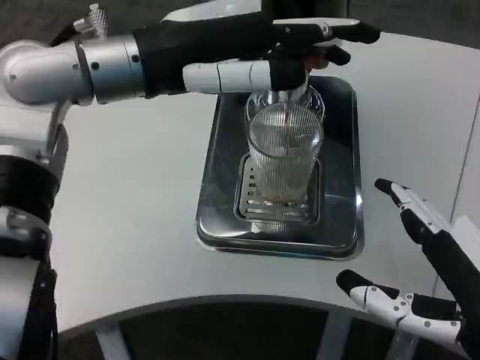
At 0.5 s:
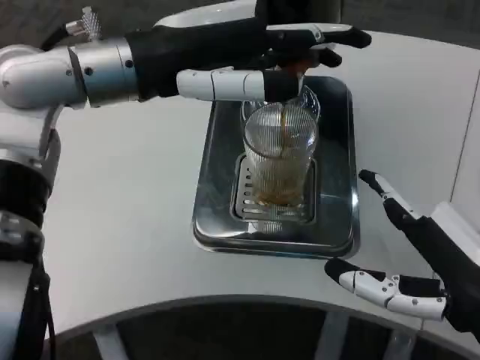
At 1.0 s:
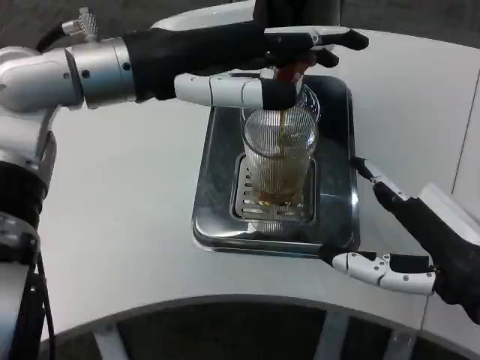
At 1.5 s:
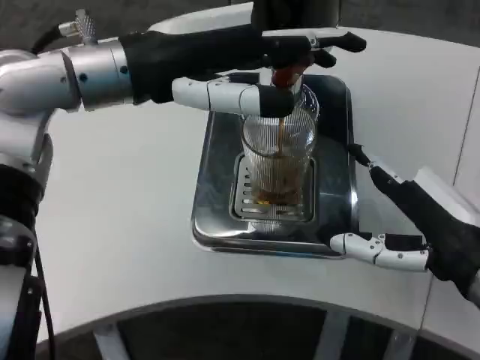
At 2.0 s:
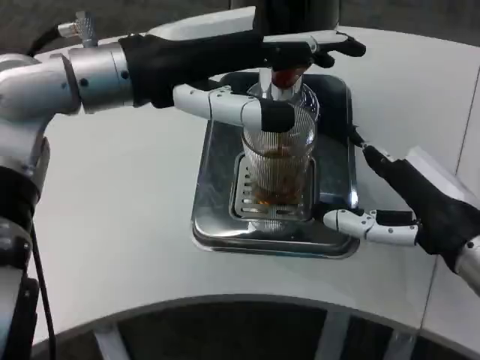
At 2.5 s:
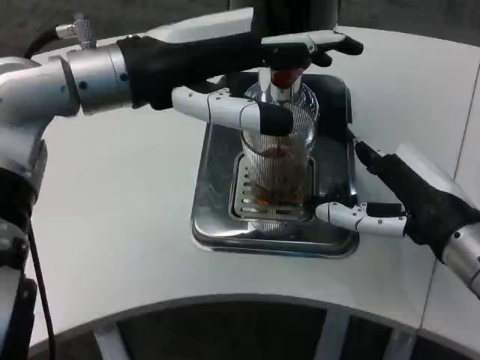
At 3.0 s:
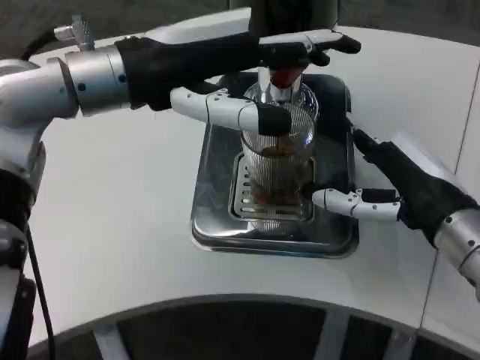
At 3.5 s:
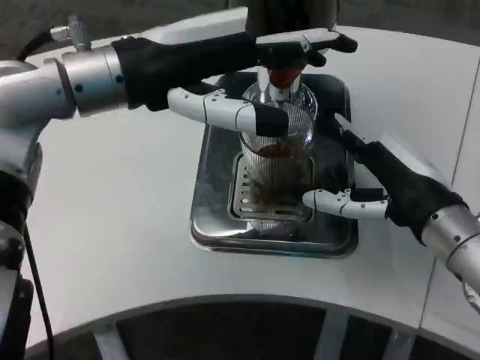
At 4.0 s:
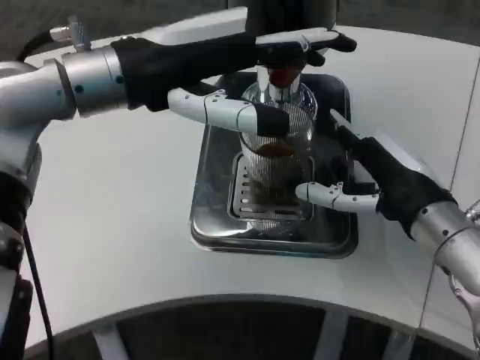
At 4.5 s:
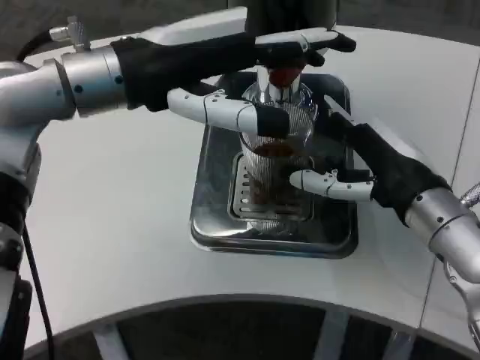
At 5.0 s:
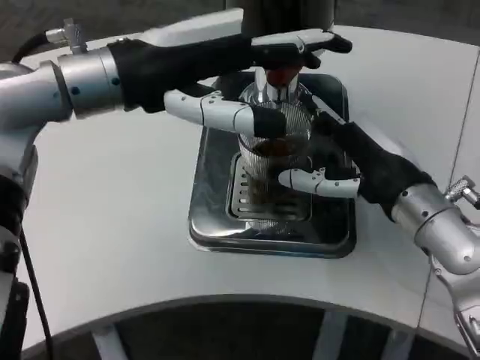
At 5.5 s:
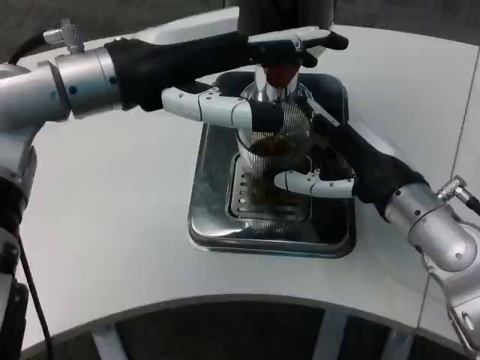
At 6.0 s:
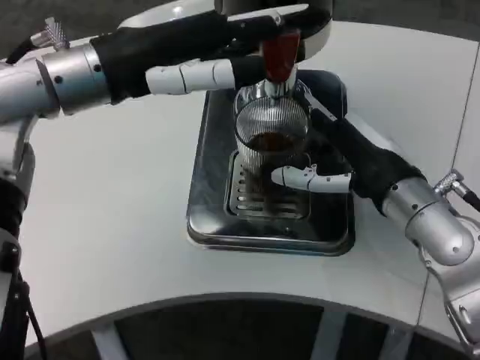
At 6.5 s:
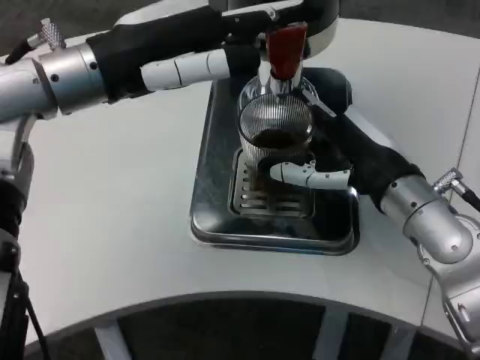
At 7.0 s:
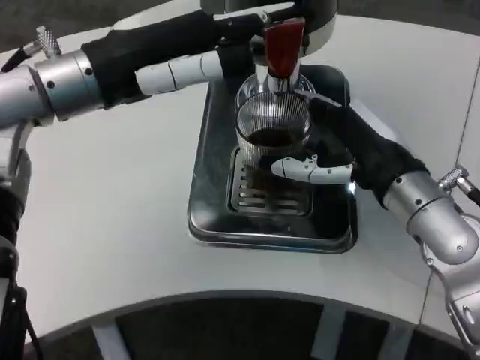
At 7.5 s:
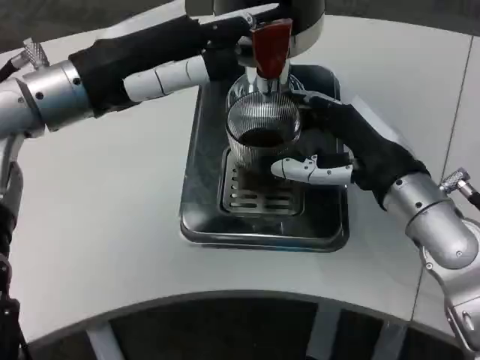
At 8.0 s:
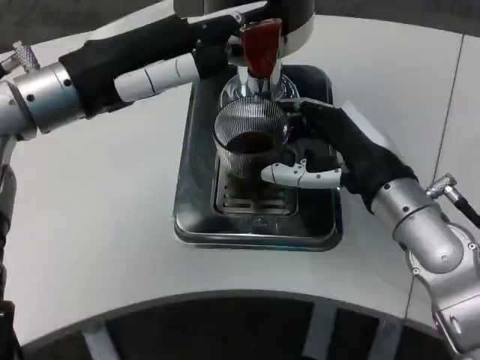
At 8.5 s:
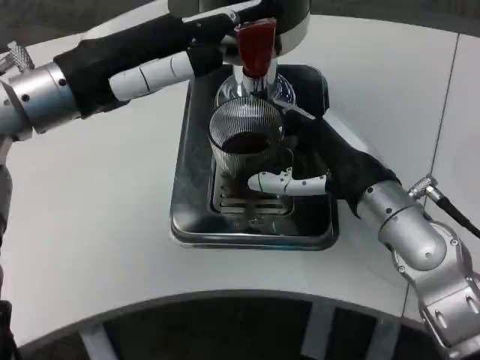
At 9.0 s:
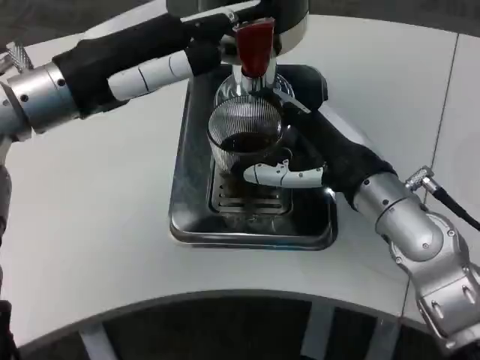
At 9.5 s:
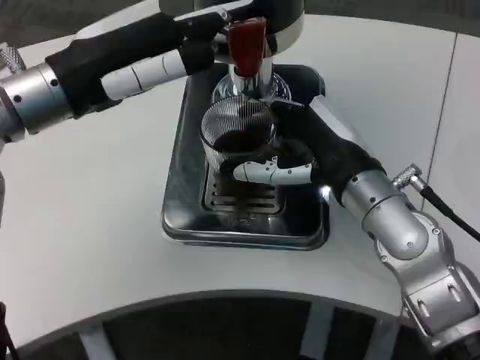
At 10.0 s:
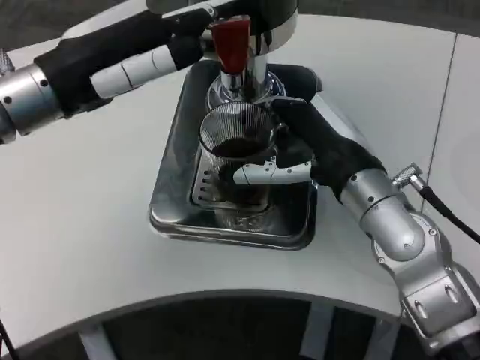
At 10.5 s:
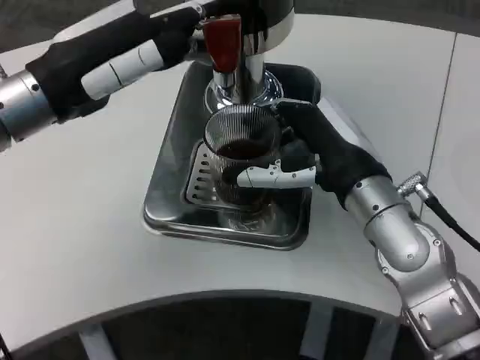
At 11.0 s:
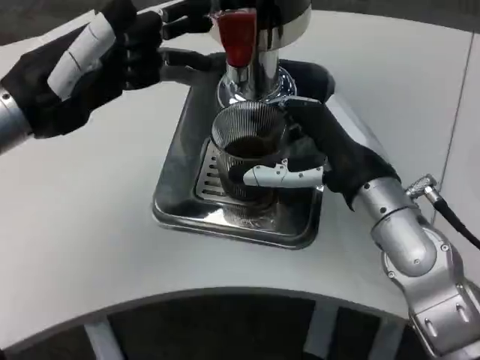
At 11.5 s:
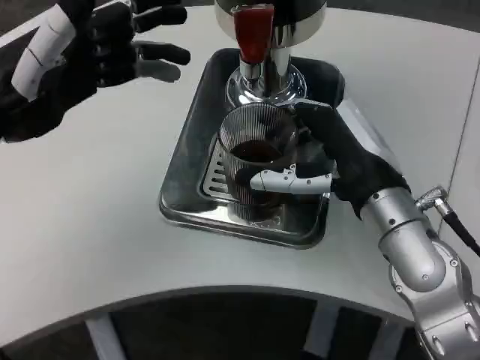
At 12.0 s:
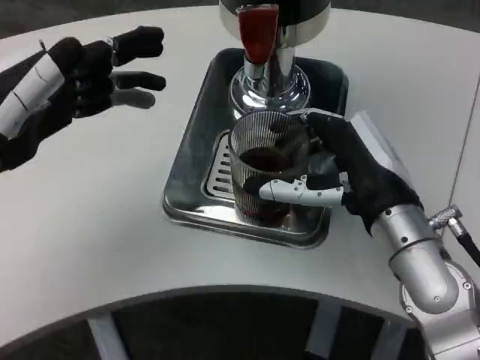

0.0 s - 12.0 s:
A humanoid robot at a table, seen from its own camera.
Task of the whole recording: Grasp the cup under the faucet to collect the drink, then remove the cup.
0.0 s - 2.0 s: The right hand travels forward by some 10 cm.
2.0 s - 4.0 s: The right hand changes place by roughly 5 cm.
10.0 s - 12.0 s: The left hand goes some 5 cm to the left.

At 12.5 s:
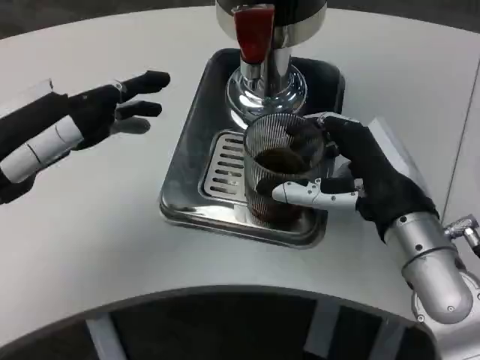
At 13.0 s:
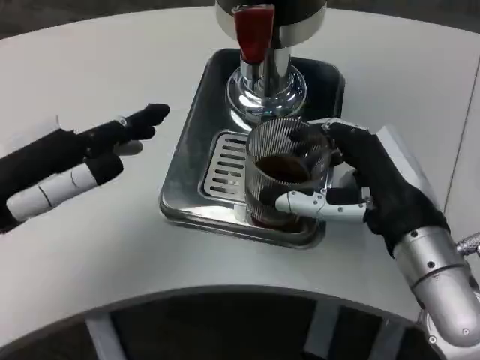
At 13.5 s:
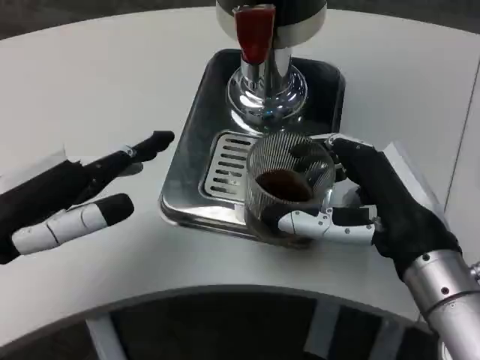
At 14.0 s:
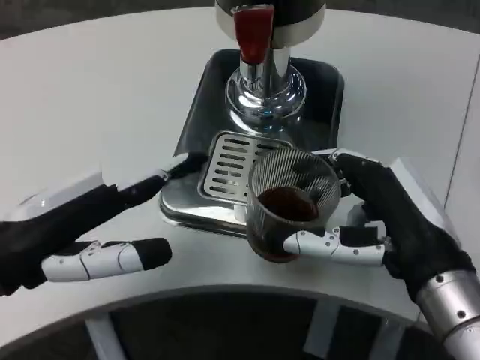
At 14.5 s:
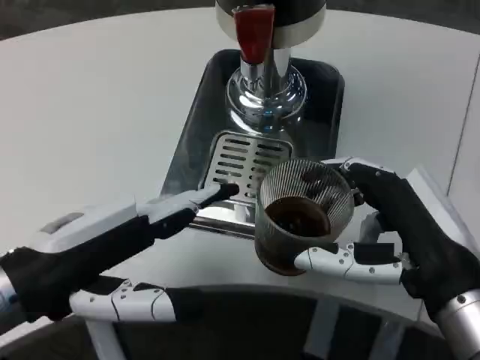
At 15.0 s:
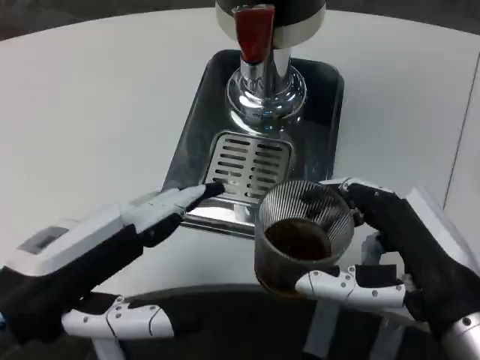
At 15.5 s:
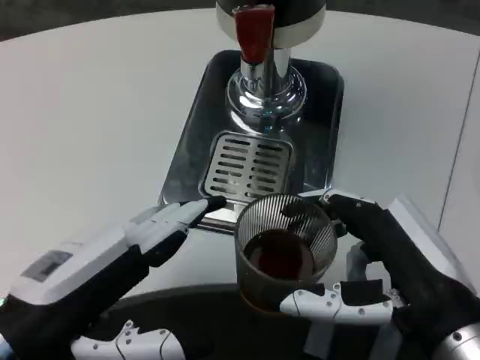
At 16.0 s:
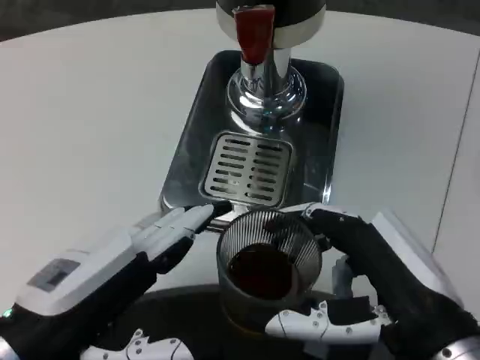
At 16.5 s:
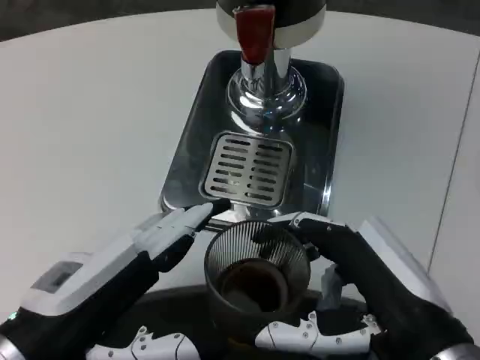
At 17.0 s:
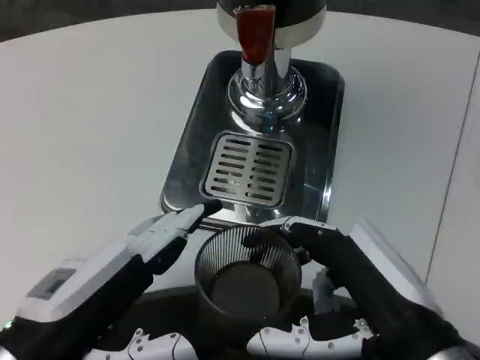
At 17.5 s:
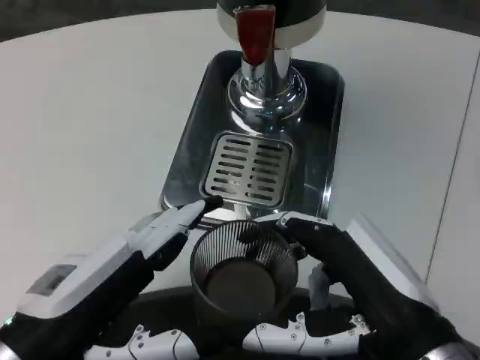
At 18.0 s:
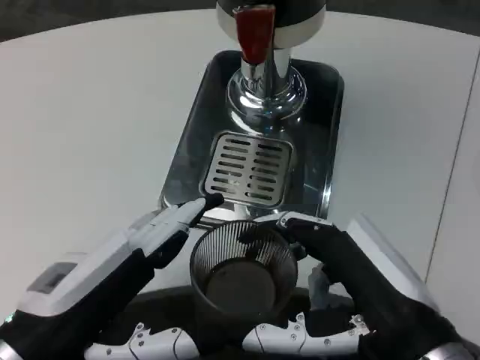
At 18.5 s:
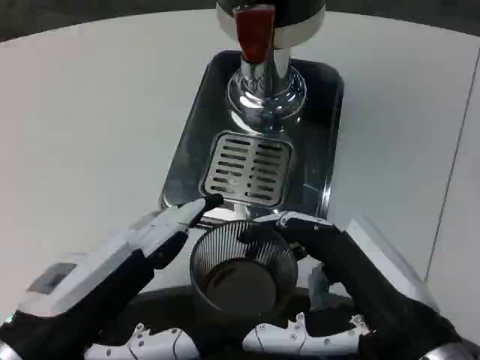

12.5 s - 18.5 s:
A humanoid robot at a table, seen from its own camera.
Task of the whole recording: Grasp the cup under the faucet to collect the drink, then remove the cup.
12.5 s - 14.5 s: The right hand travels backward by approximately 10 cm. The left hand heads backward and to the right, covering roughly 10 cm.
14.5 s - 16.5 s: The left hand ends up roughly 5 cm from where it was.
16.5 s - 18.5 s: Both hands stay put.

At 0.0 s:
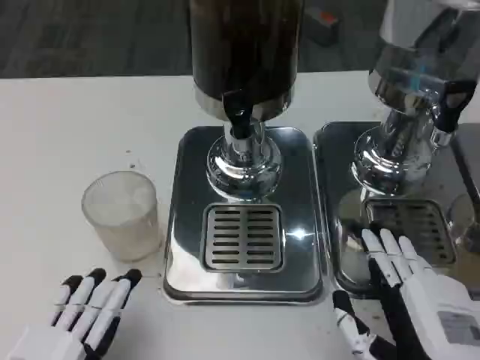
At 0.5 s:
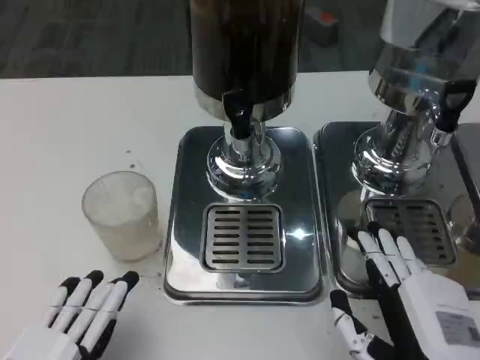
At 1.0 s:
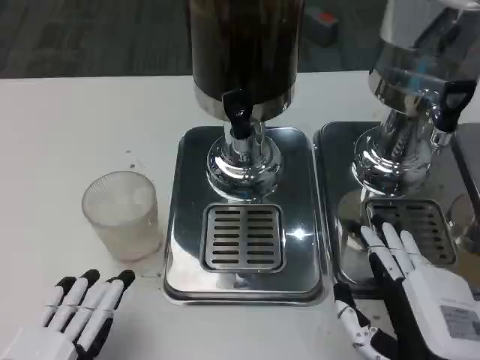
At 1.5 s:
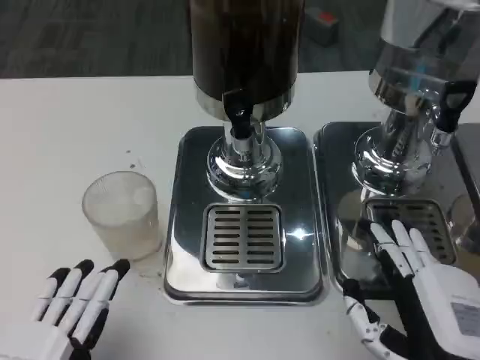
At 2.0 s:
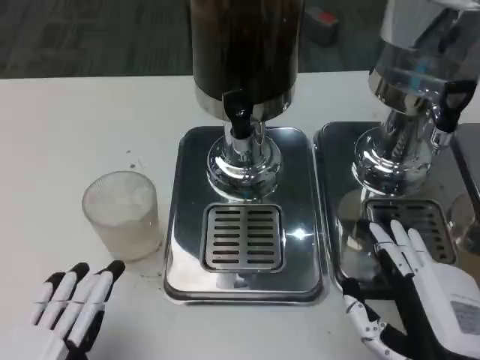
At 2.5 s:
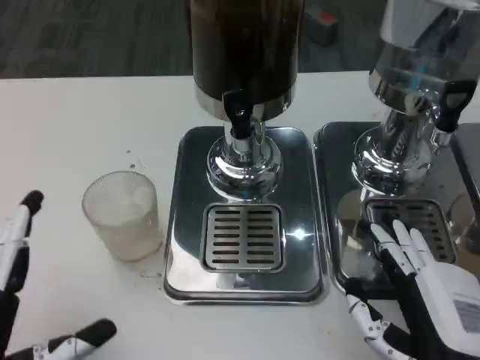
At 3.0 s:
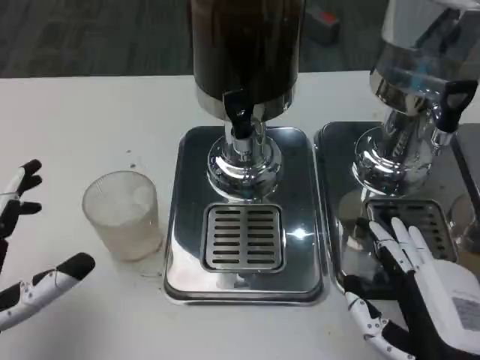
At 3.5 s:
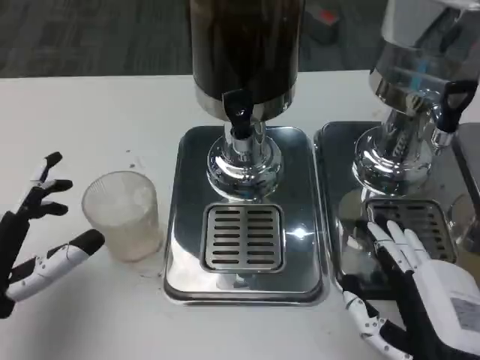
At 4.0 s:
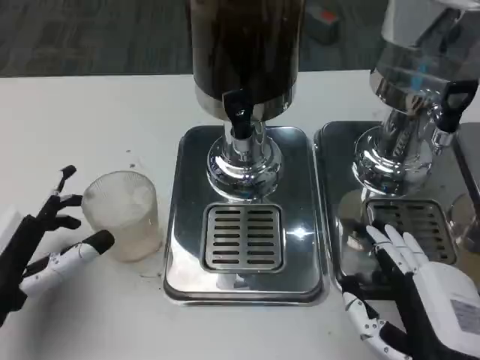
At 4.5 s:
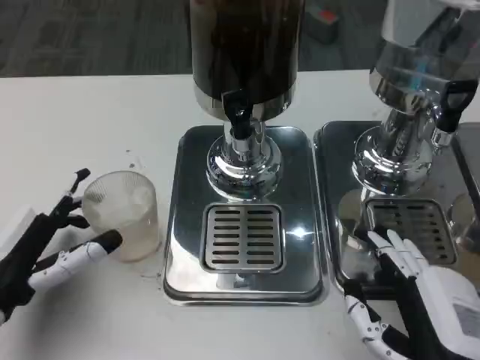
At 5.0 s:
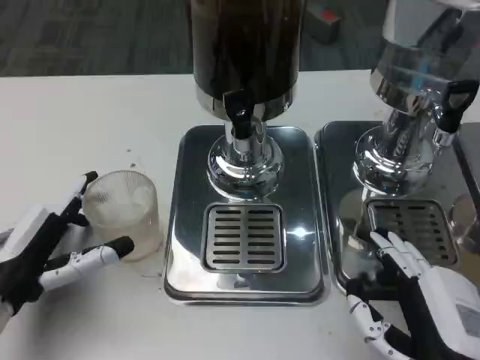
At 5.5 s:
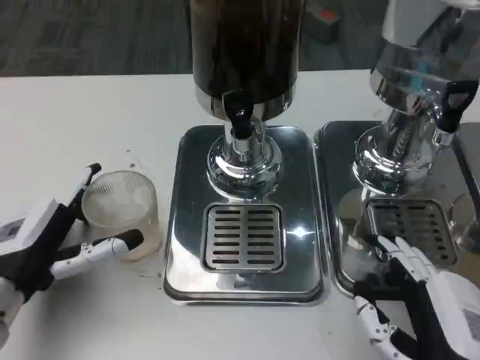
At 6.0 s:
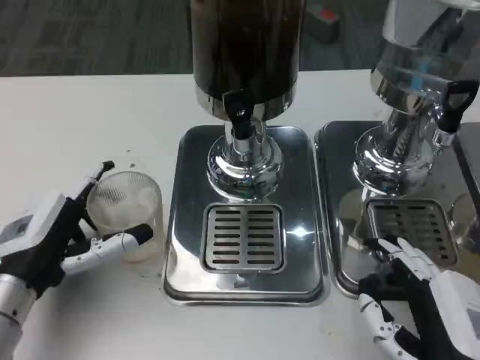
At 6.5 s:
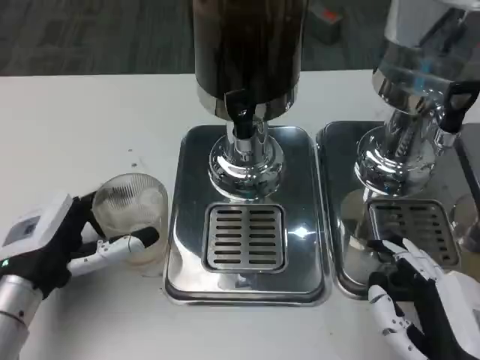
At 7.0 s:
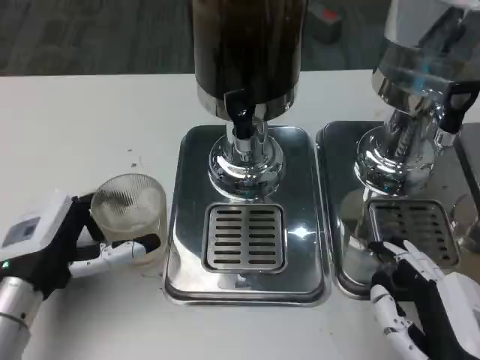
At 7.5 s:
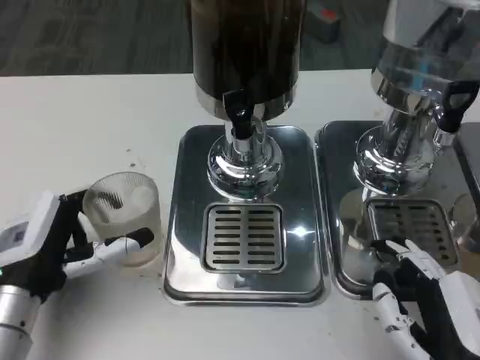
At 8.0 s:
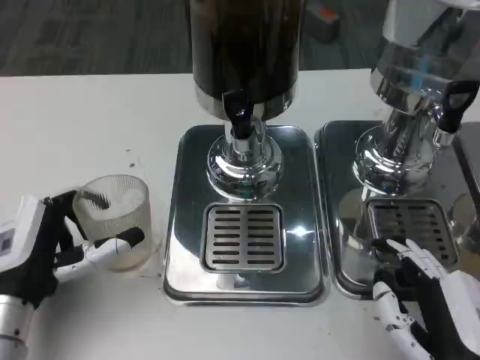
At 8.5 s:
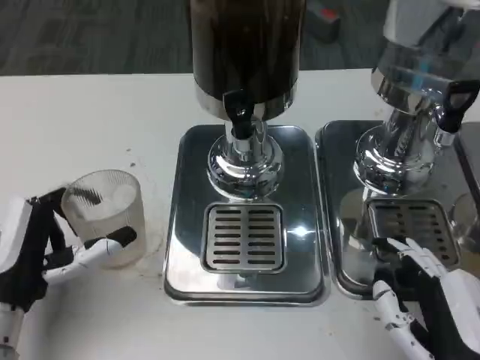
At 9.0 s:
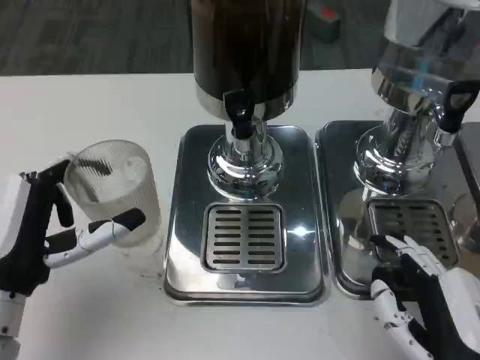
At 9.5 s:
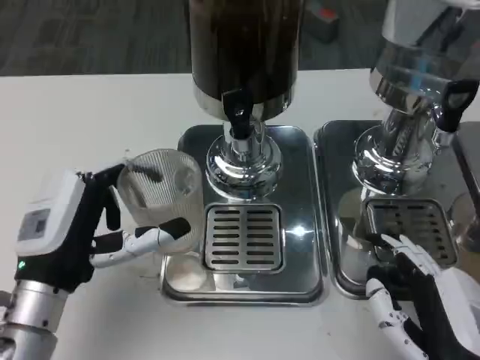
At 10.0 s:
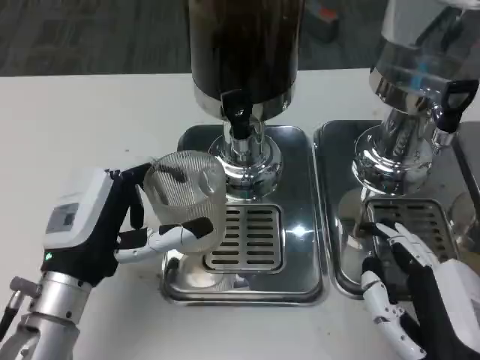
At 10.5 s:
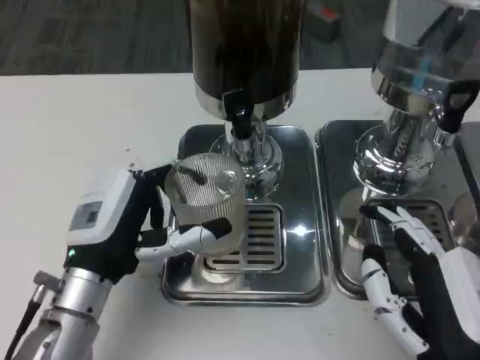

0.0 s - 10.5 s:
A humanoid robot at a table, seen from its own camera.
Task of the whole recording: Grasp the cup under the faucet to collect the drink, then remove the cup.
0.0 s - 2.0 s: The two hands keep their place.
2.0 s - 4.0 s: The left hand goes about 15 cm forward.
6.5 s - 8.5 s: The hands stay close to where they were, moving slightly.
8.5 s - 10.5 s: The left hand goes roughly 5 cm to the right.
